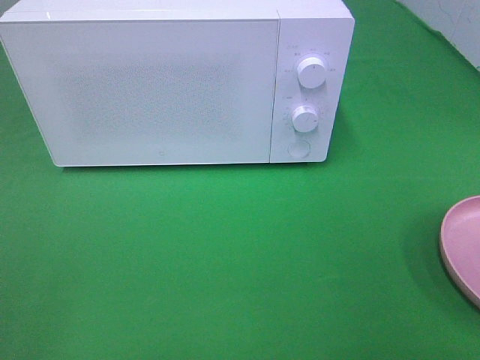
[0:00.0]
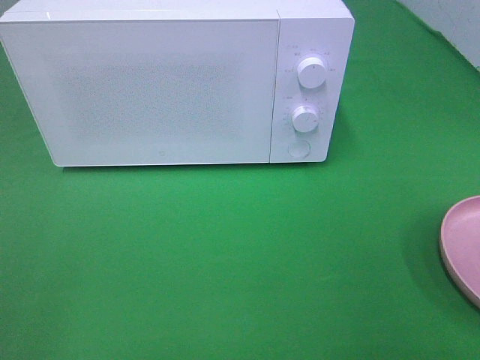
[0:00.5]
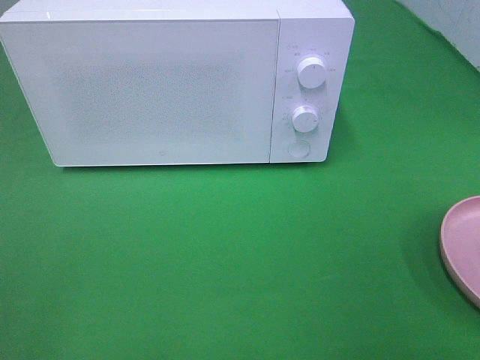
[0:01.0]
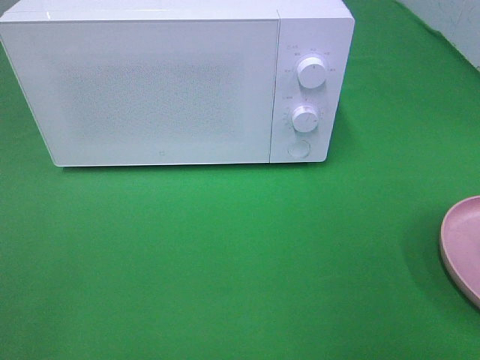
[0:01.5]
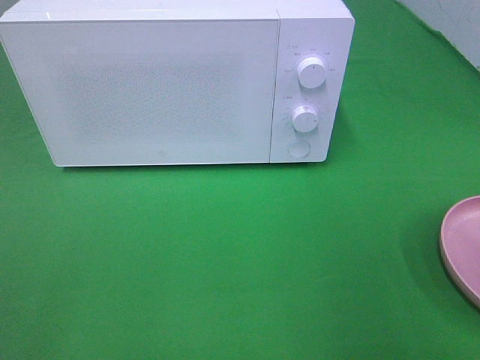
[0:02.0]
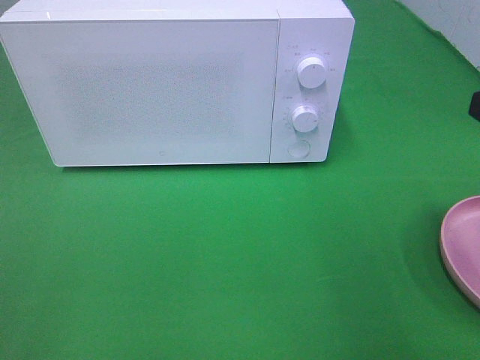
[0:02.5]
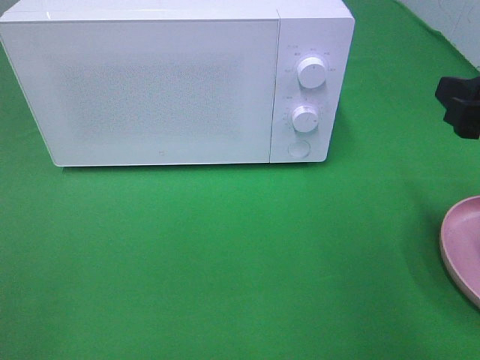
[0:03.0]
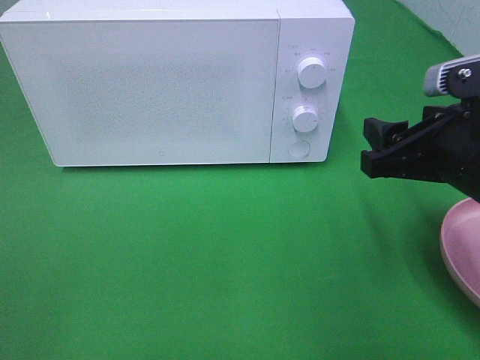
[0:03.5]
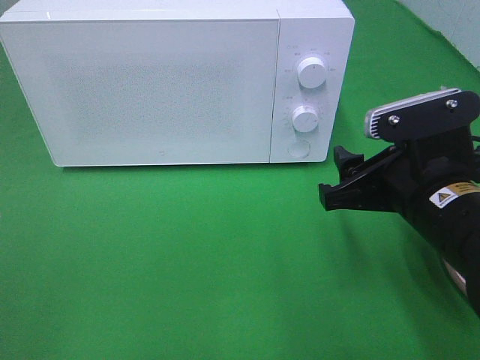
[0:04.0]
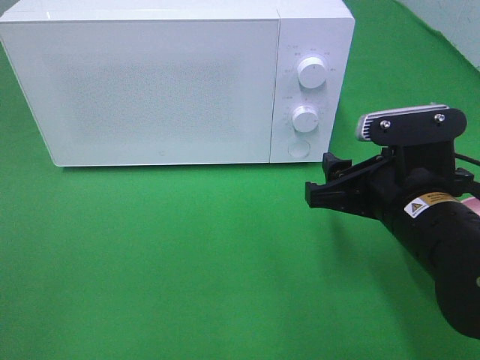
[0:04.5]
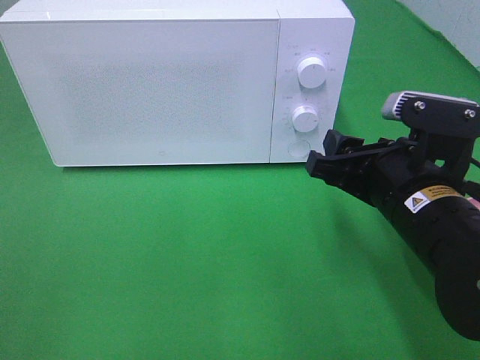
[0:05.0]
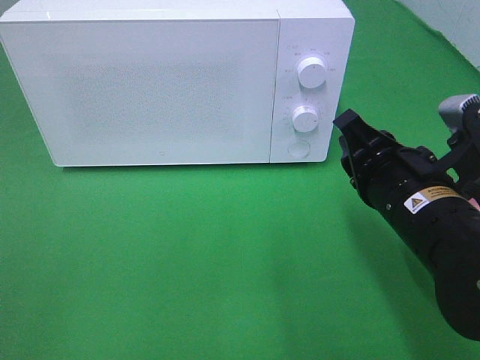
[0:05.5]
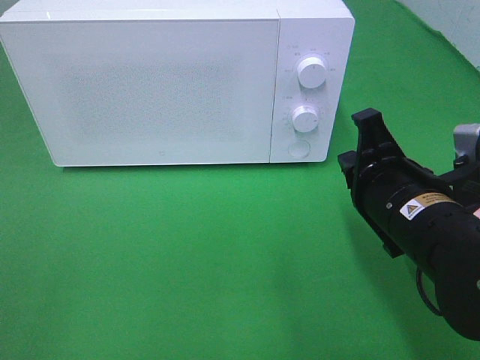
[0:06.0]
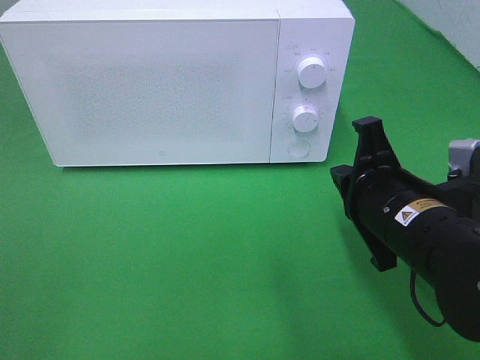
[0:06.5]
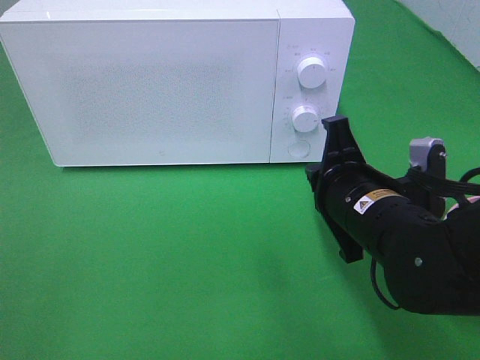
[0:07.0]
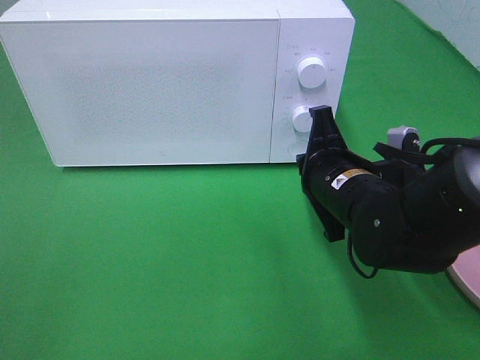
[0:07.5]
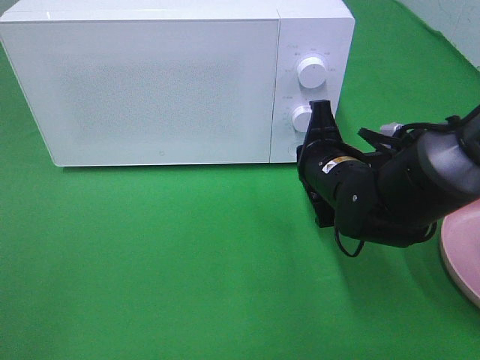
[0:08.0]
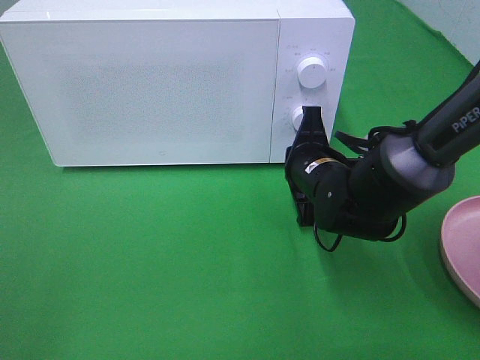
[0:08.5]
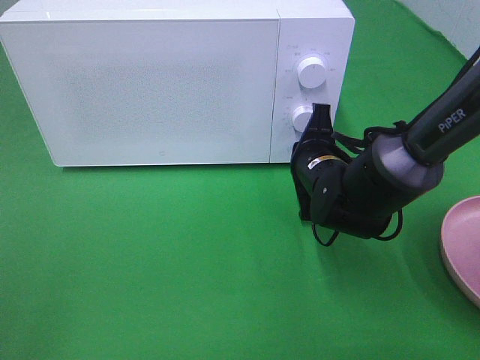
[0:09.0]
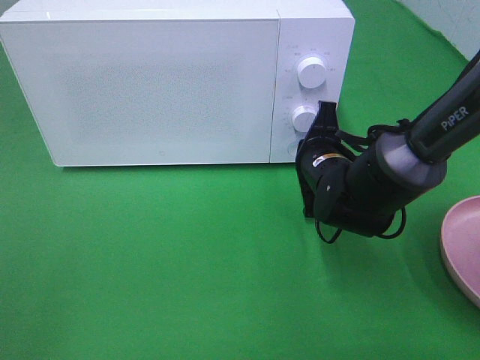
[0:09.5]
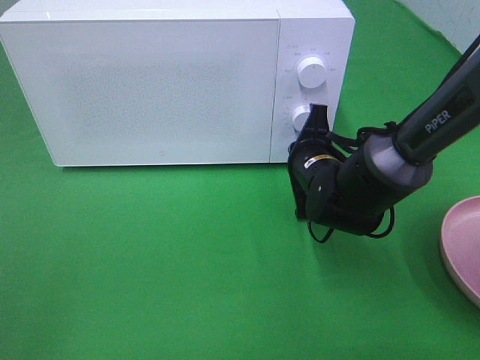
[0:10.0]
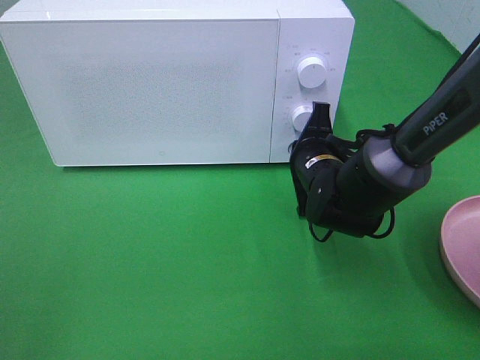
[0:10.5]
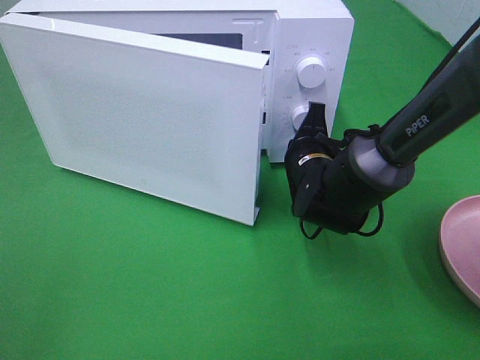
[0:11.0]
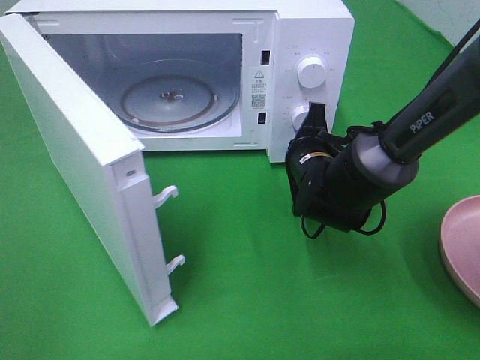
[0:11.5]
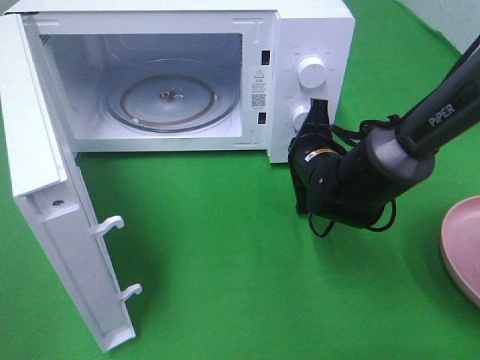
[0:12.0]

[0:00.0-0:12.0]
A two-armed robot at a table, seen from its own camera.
Task of the whole recording: Heat the burger.
0:02.0 to 0:04.0: The right gripper moves downward, to the left and forward, some 20 cm.
0:04.0 to 0:06.0: The right gripper closes its fingers.
0:06.0 to 0:08.0: The right gripper moves forward, approximately 10 cm.
0:08.0 to 0:10.0: The right gripper moves about 5 cm.

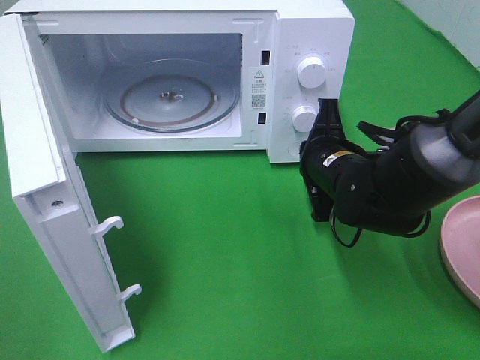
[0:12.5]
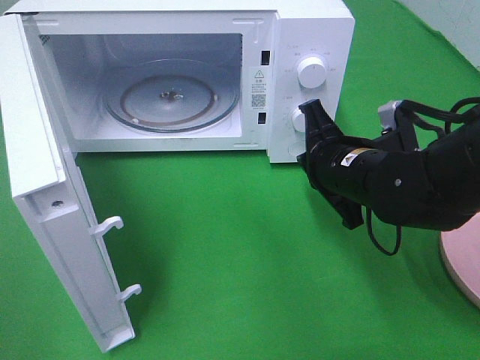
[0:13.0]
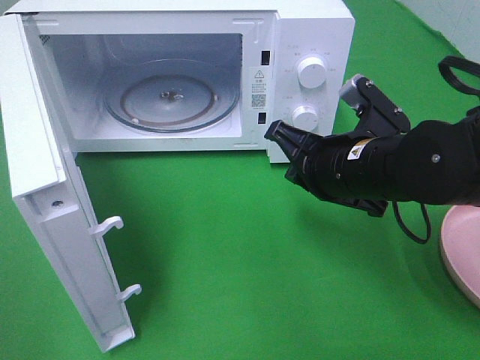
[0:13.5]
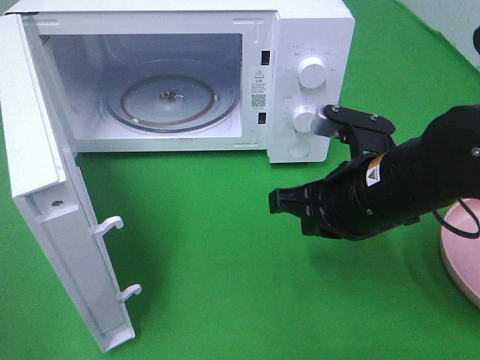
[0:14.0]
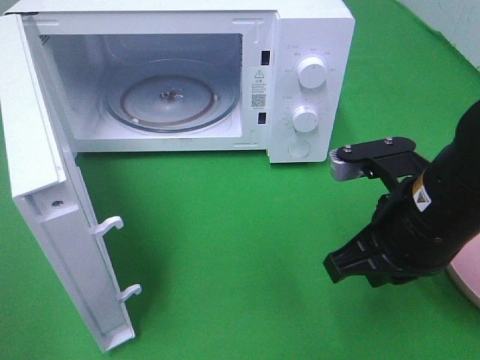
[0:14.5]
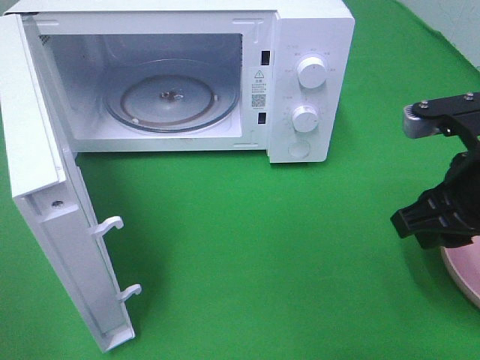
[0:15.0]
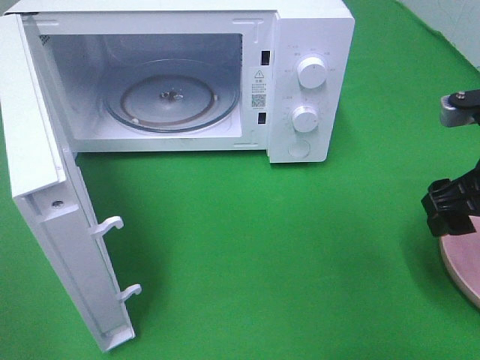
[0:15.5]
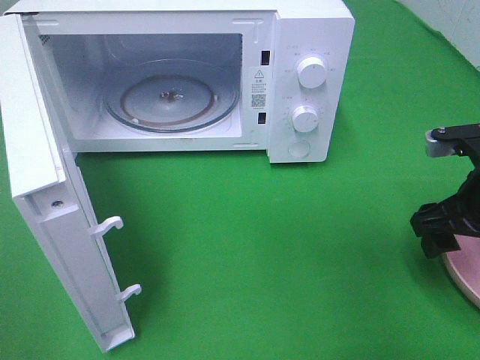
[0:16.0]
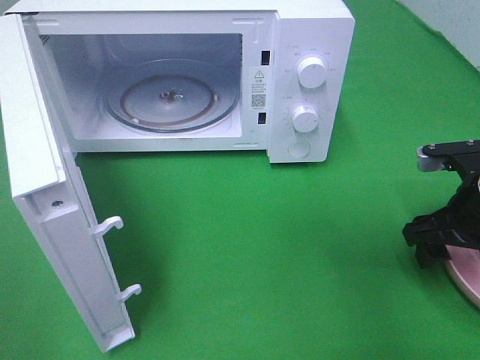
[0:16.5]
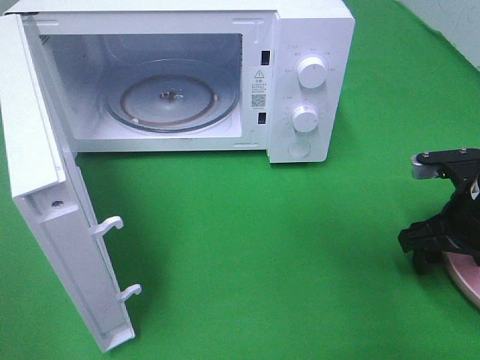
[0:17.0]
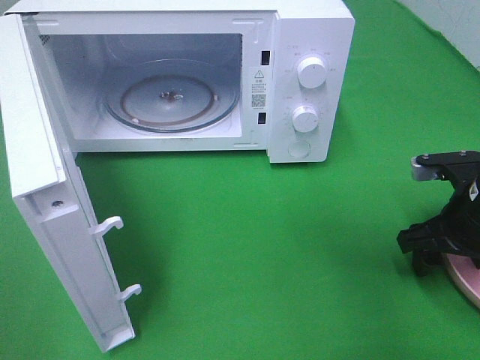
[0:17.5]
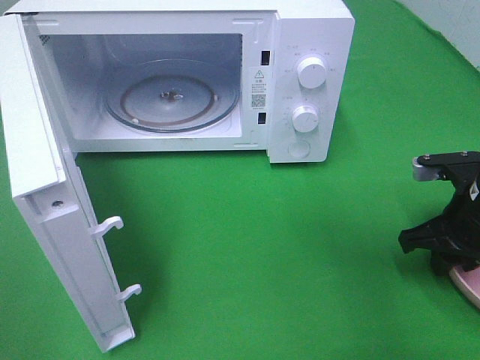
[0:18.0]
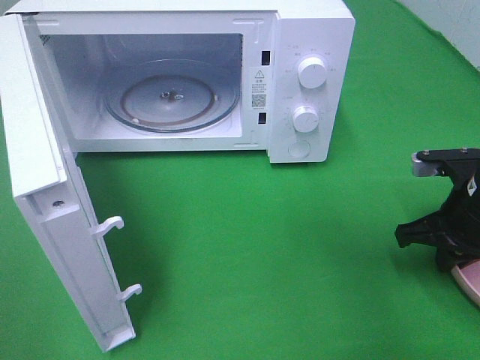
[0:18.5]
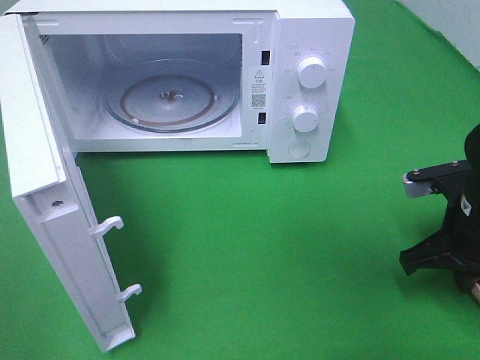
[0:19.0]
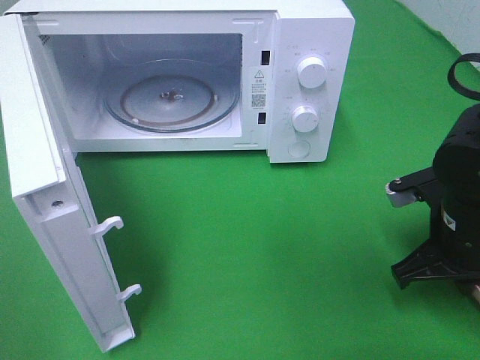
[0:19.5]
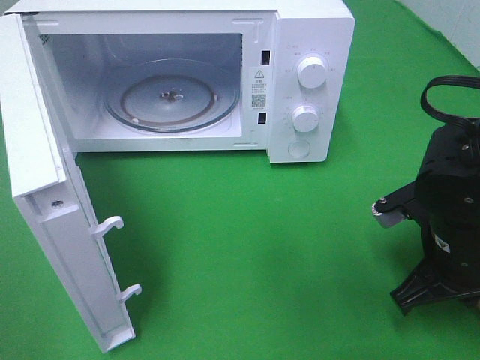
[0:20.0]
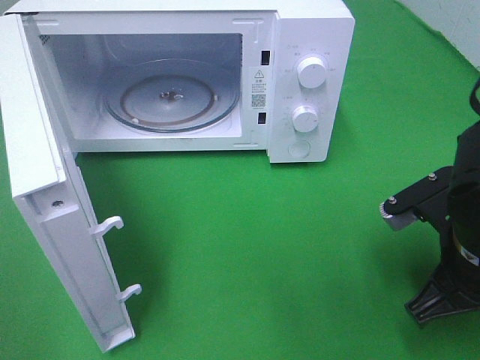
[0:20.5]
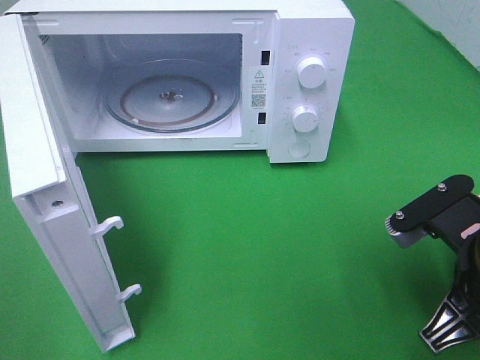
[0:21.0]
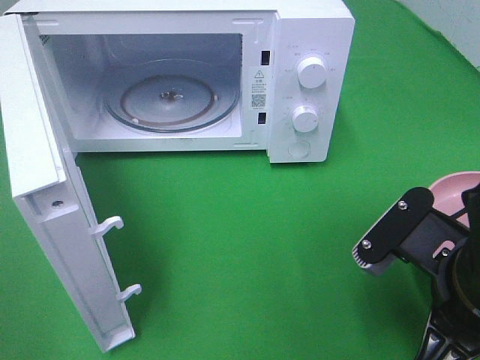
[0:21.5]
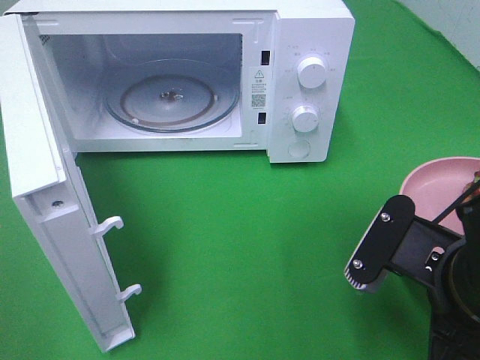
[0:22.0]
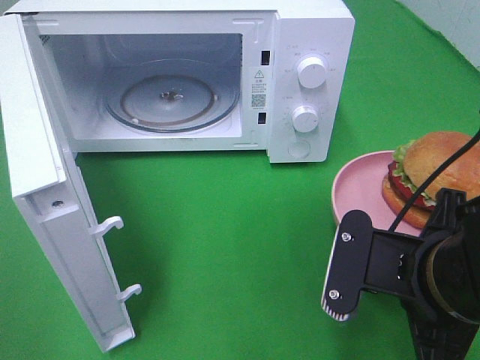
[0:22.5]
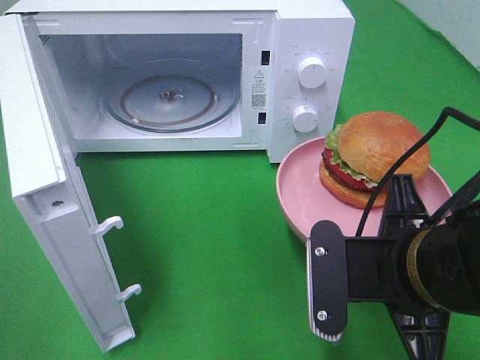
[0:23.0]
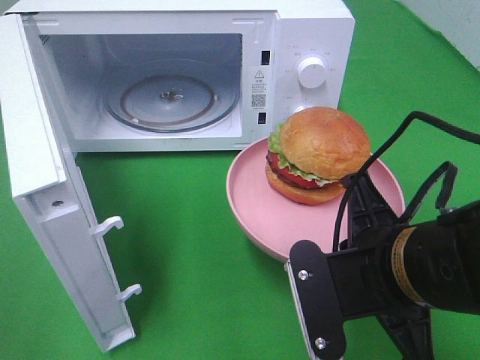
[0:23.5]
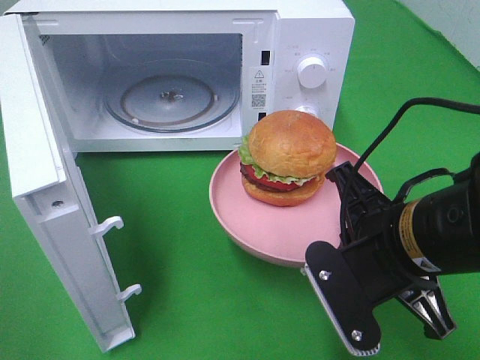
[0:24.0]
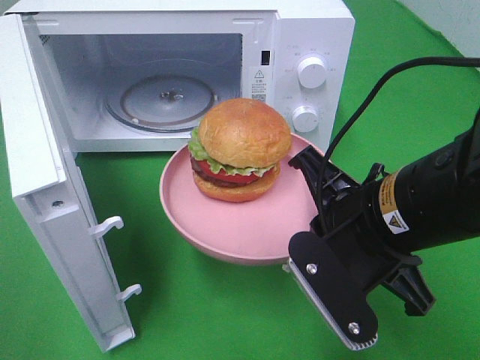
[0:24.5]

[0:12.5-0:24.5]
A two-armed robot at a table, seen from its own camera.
Task of the whole recording: Heat the burger.
Step, 0:13.5 to 0:18.0: Right hand: grab the plate with the hamburger.
0:12.5 to 0:14.5: The right gripper moves backward and upward, some 15 cm.
0:14.5 to 0:16.5: The right gripper is displaced to the right, forward and downward by roughly 15 cm, and opens its fingers.
0:16.5 to 0:18.5: The right gripper closes.
0:18.5 to 0:20.5: The right gripper shifts roughly 10 cm backward and to the left.
0:20.5 to 0:22.5: The right gripper moves to the left, about 5 cm.
0:22.5 to 0:24.5: The right gripper ends up roughly 5 cm from where it was.

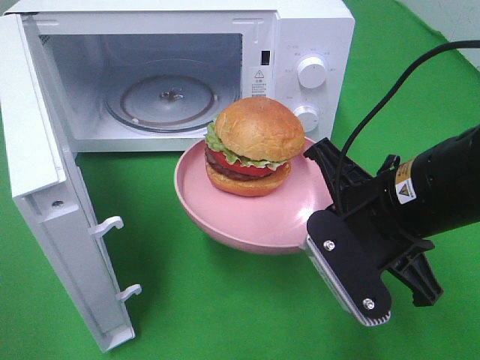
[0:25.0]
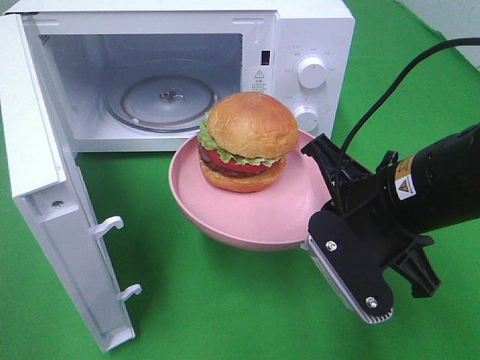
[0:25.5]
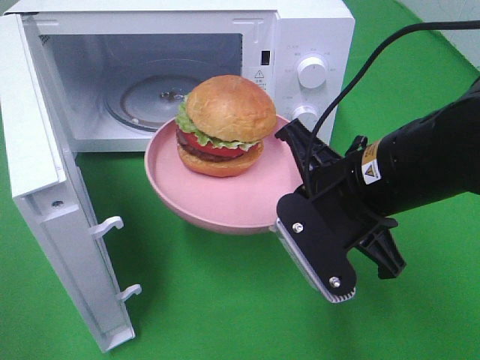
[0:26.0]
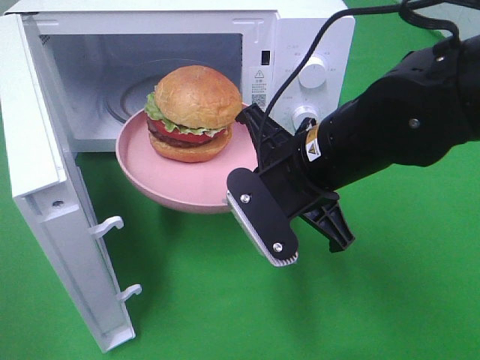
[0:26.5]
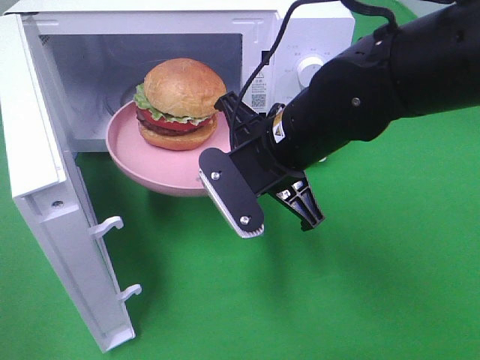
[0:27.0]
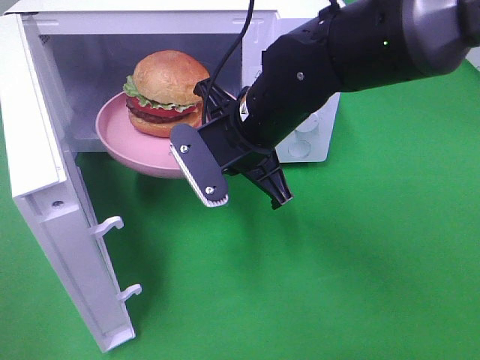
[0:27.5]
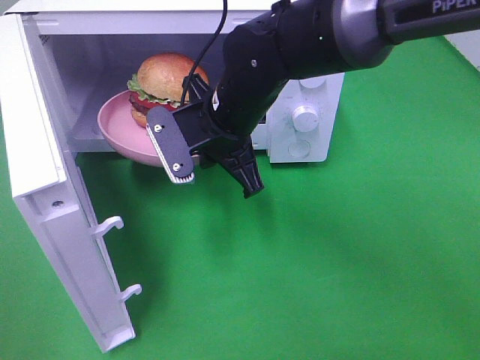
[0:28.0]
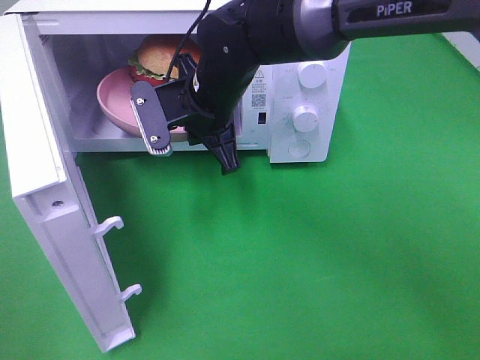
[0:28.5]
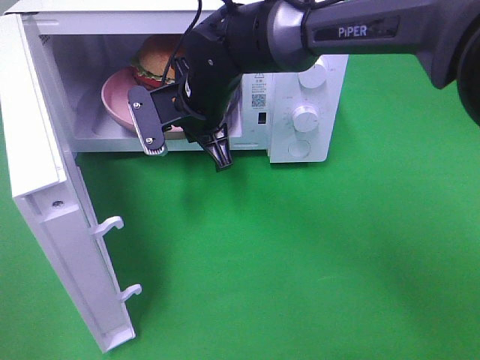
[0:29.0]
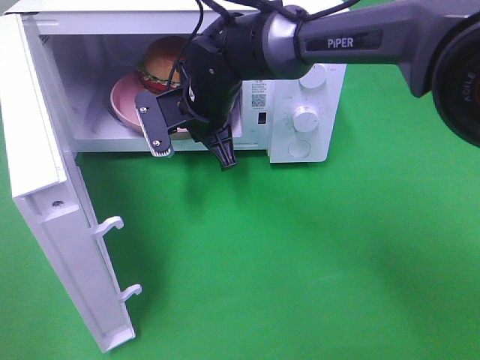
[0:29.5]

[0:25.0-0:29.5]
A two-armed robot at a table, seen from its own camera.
Task of the whole recording: Heat the burger.
0:25.0 to 0:27.0: The right gripper moves to the left and forward, about 10 cm.
0:27.0 to 0:29.5: The right gripper shifts about 15 cm forward and to the left.
